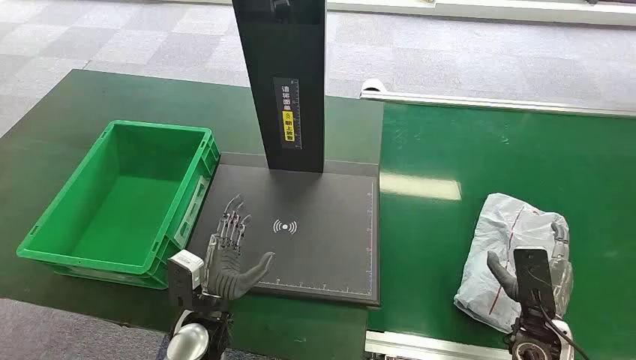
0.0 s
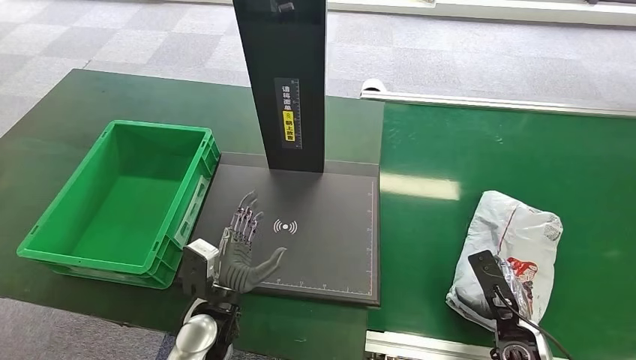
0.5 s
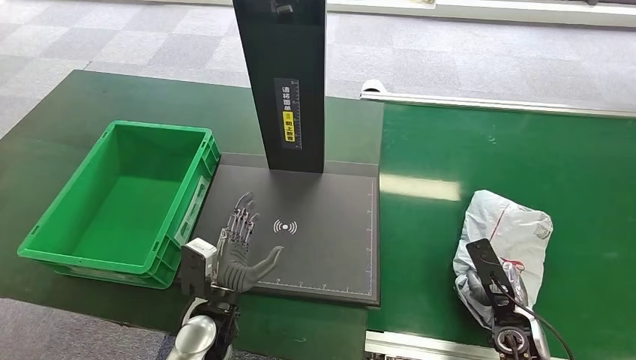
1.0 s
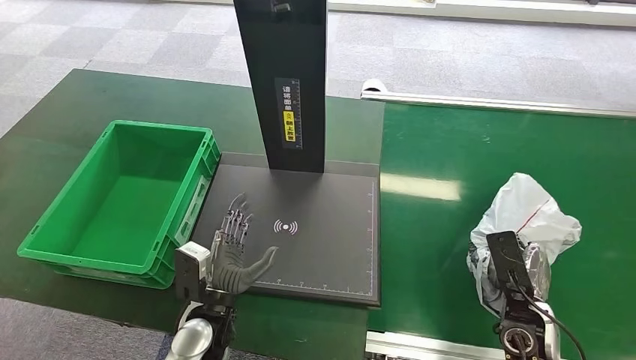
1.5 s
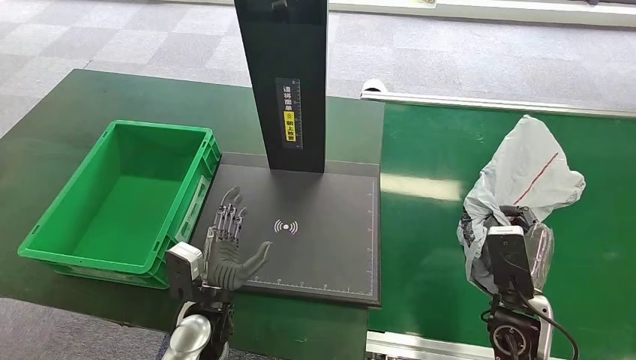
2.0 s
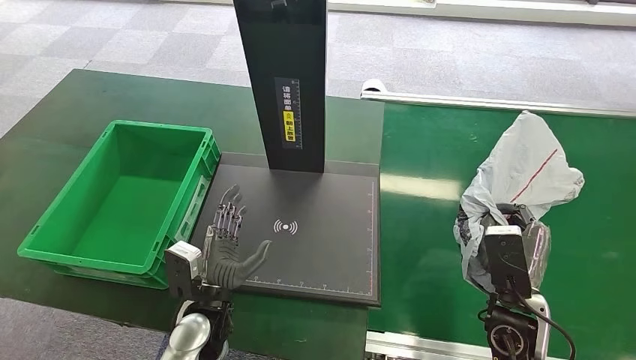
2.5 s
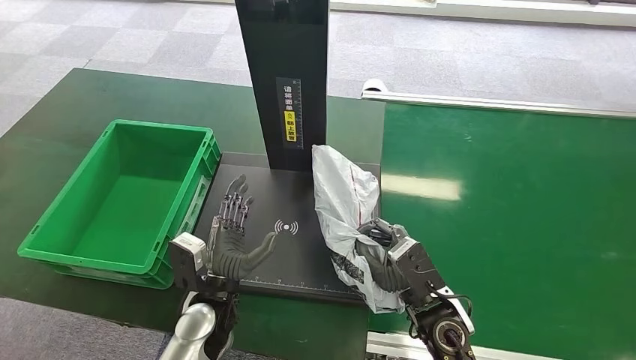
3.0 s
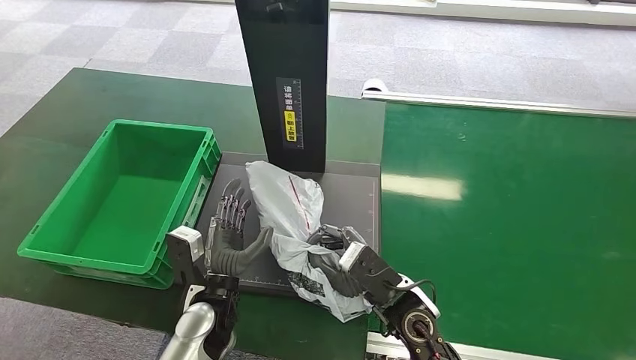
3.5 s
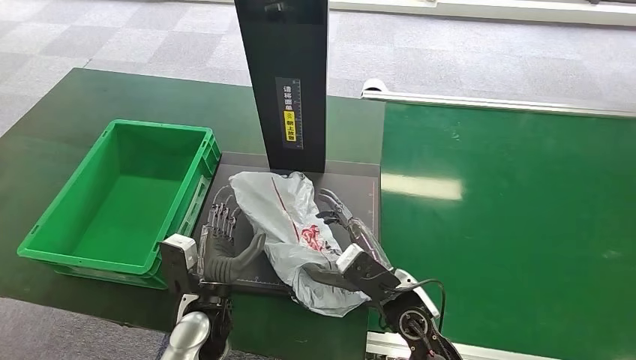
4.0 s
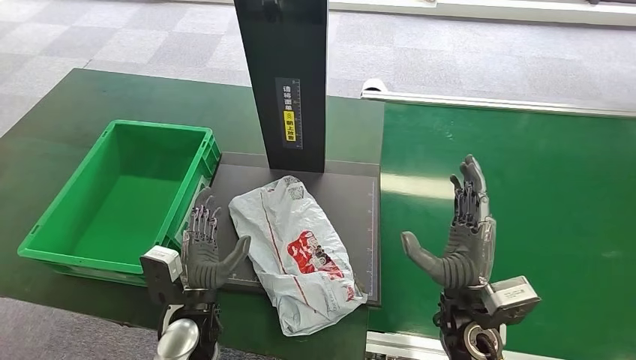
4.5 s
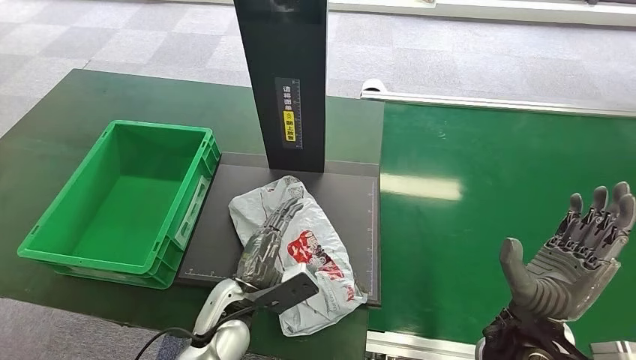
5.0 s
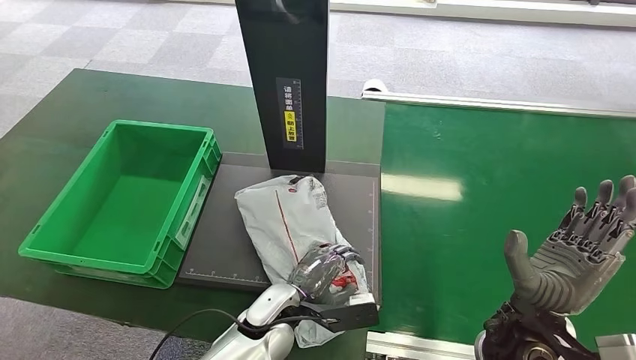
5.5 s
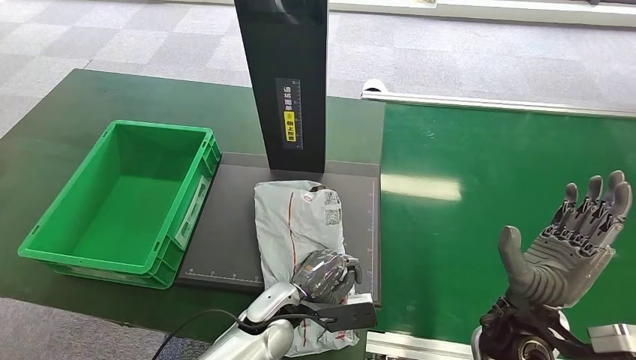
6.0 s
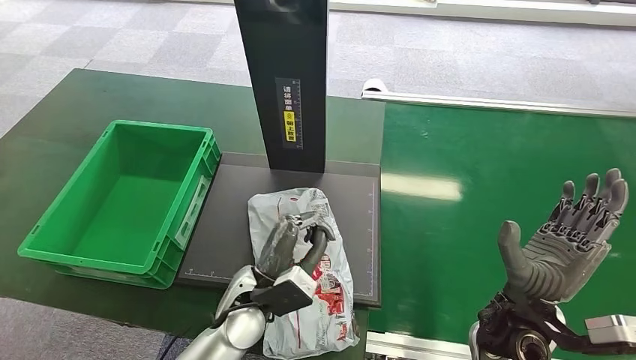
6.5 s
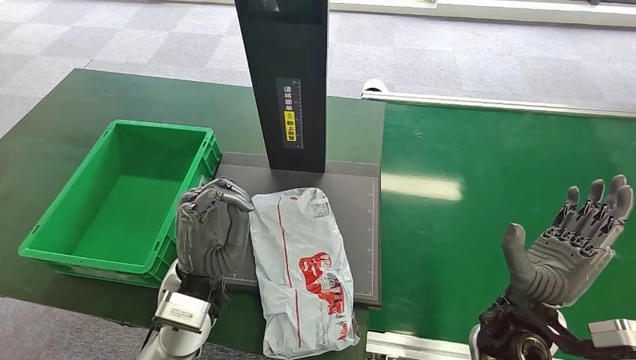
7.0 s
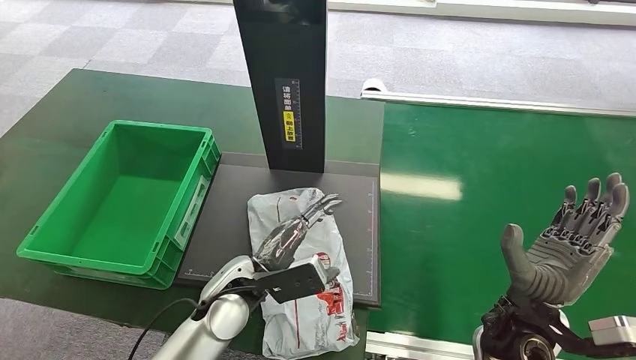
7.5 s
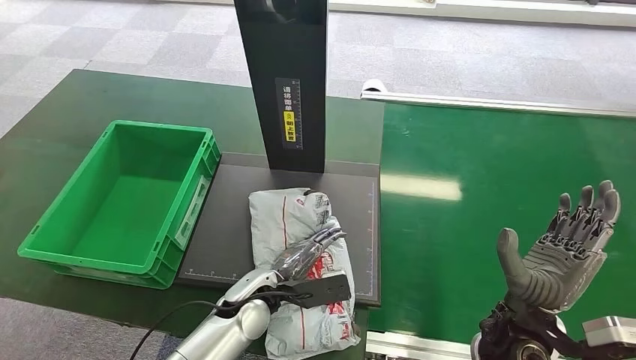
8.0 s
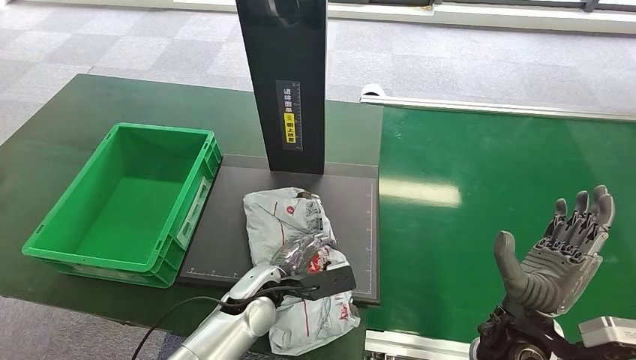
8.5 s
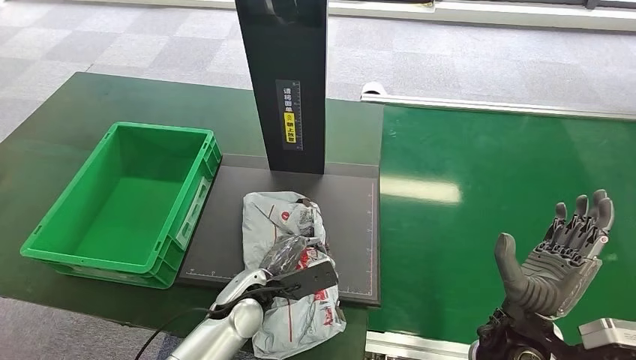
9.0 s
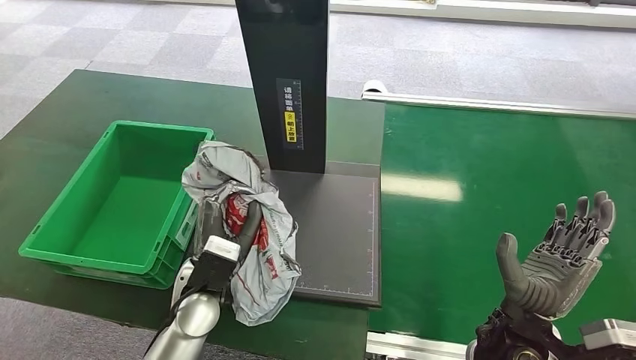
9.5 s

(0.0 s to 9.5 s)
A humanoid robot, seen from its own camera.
Task of the whole recording: Weigh the package on the weighing device and place it in the left basket.
Step, 0.0 s - 1.5 s: Pick up the package from the conveyor belt.
Step, 2.0 s - 5.0 s: Place the package onto the inbound machine.
2.0 s - 4.0 s: The right hand goes some 15 cm to the left.
4.0 s - 5.5 s: The right hand is displaced to the right and upward by some 15 cm; the left hand travels to the right by about 10 cm.
5.5 s - 7.5 s: The left hand goes about 10 cm upward and to the left.

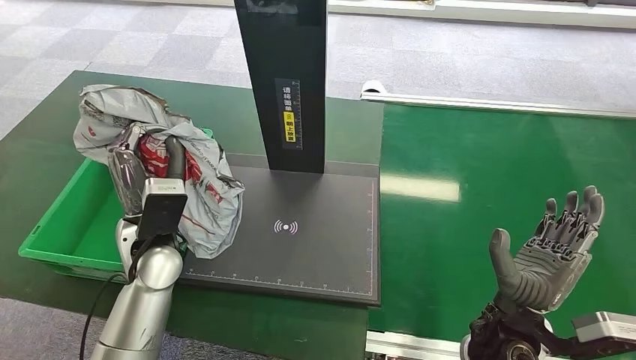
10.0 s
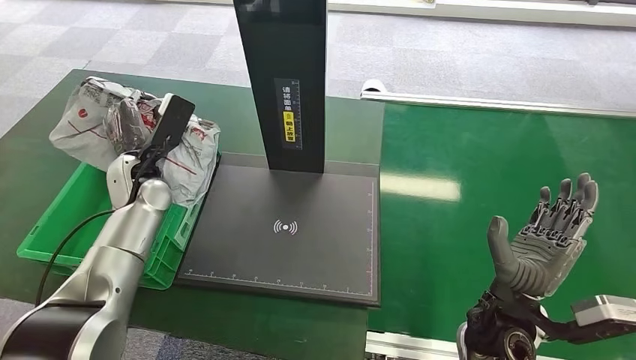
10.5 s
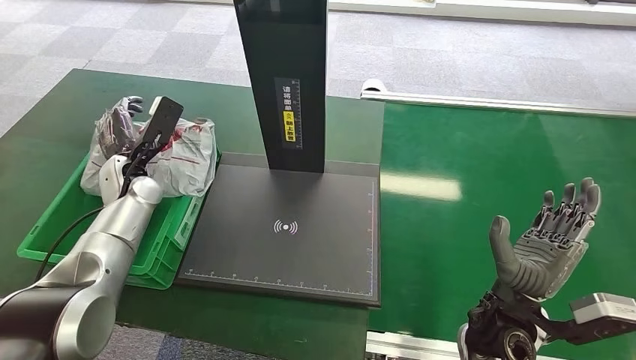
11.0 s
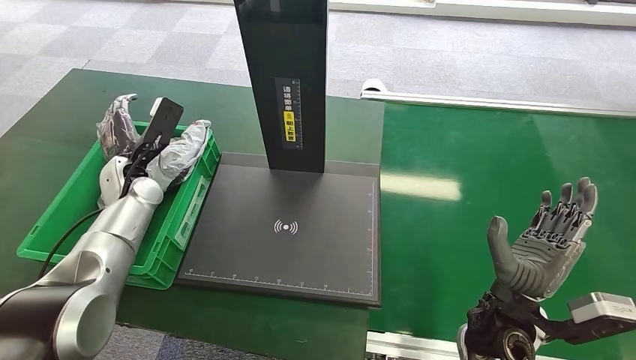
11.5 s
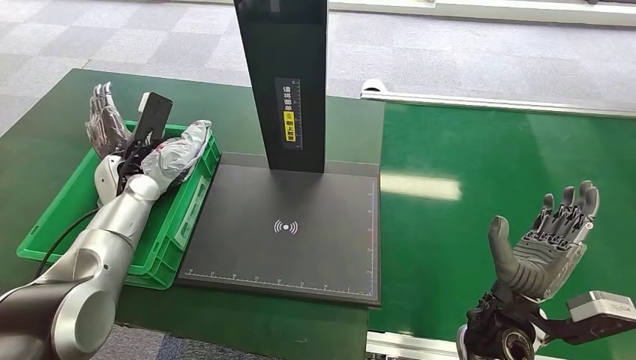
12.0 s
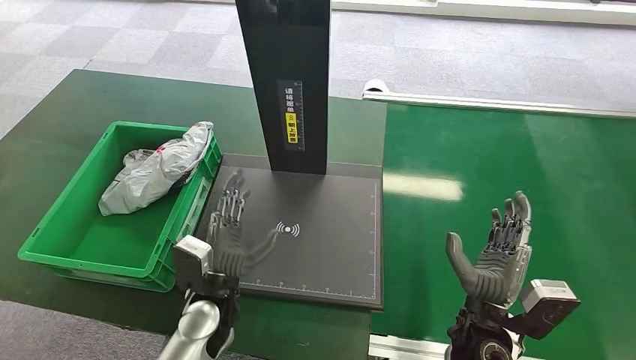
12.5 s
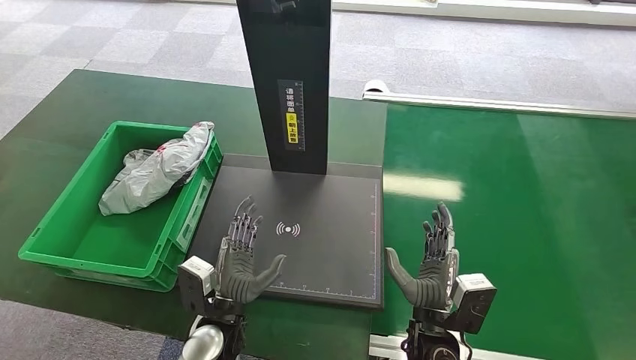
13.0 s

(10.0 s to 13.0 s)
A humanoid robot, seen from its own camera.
Task of the whole recording: Weigh the package on the weighing device and place it in the left basket.
Step, 10.5 s - 13.0 s: Place the package into the parcel locker.

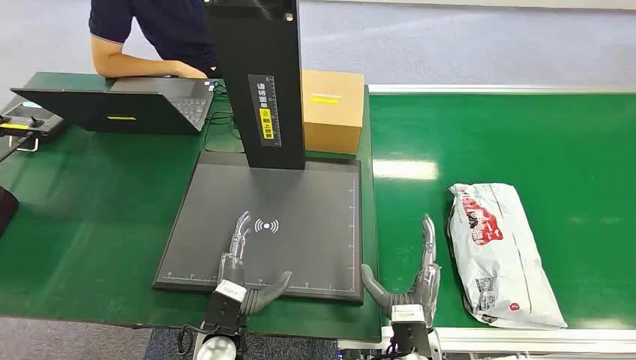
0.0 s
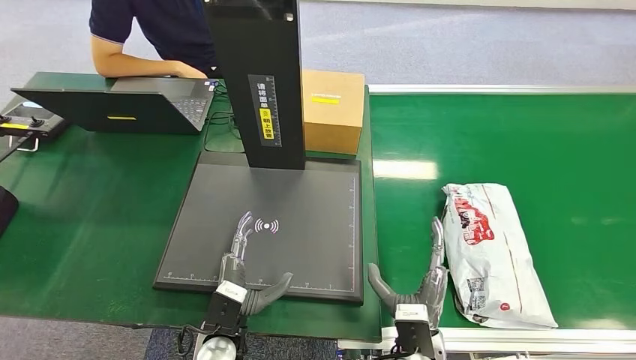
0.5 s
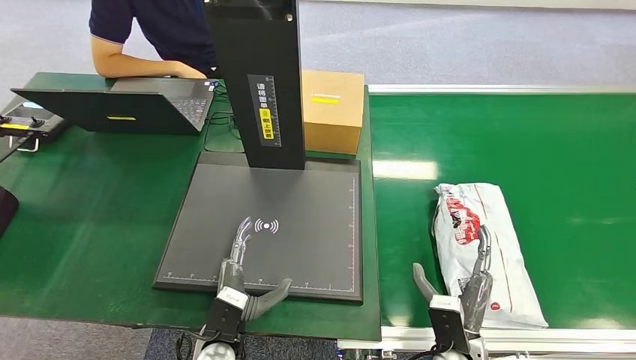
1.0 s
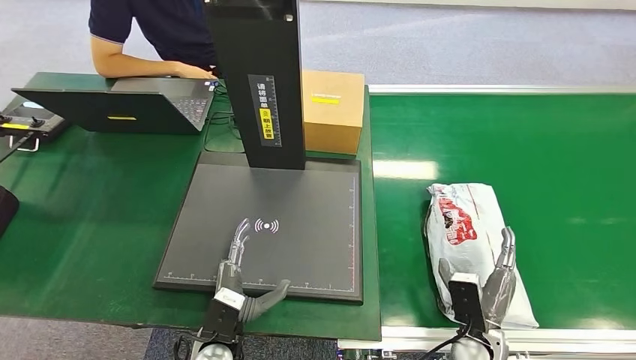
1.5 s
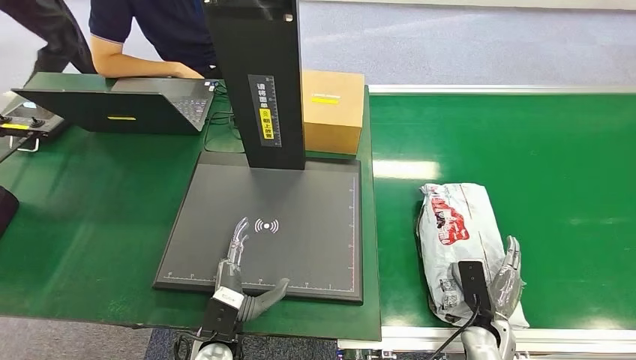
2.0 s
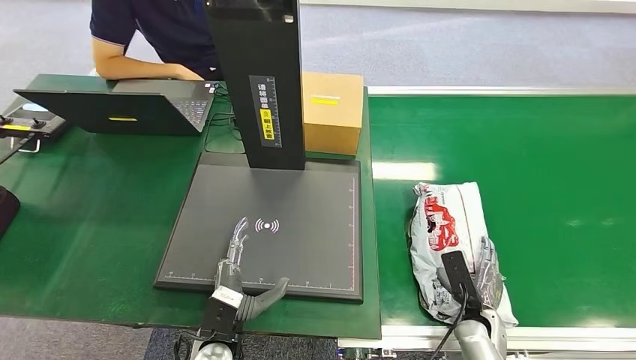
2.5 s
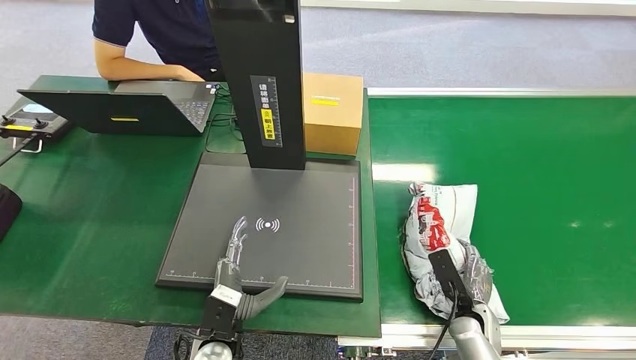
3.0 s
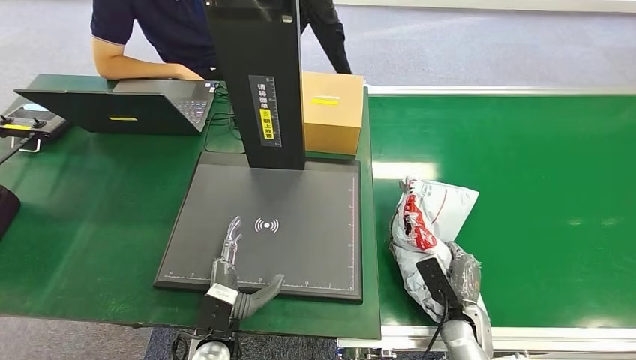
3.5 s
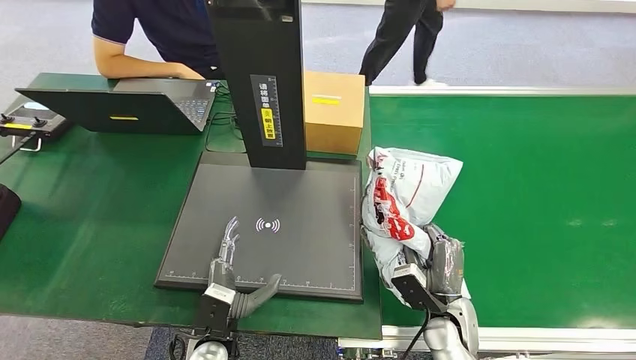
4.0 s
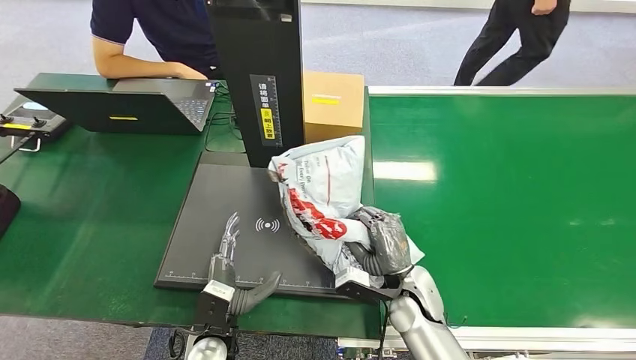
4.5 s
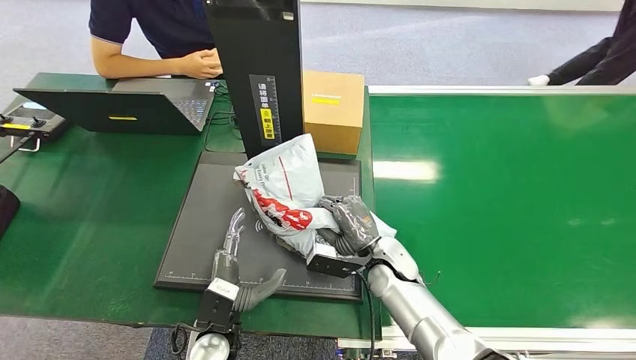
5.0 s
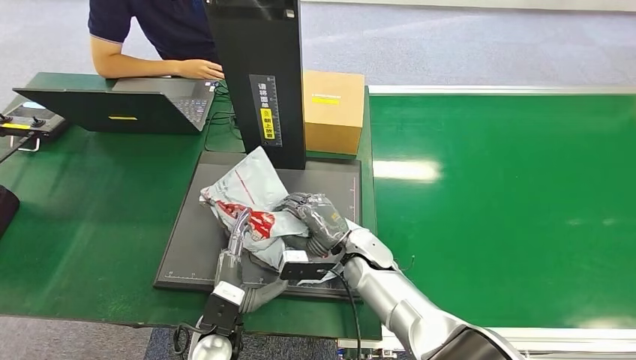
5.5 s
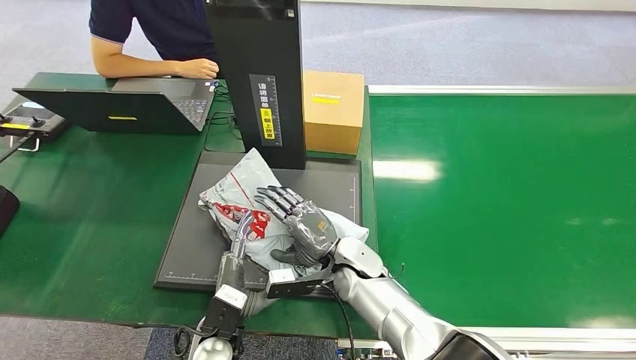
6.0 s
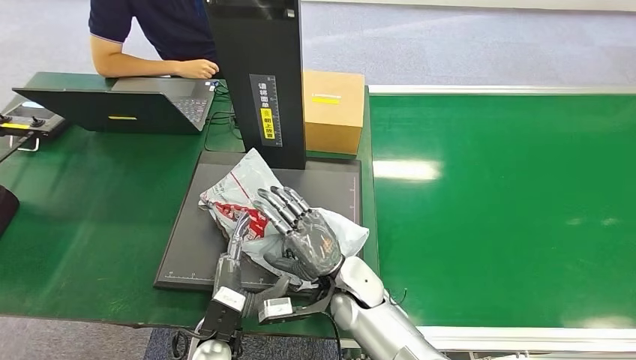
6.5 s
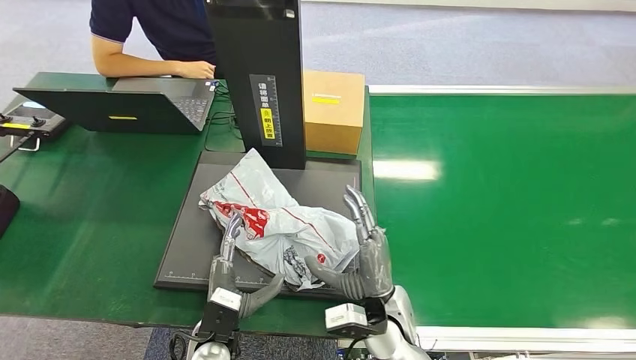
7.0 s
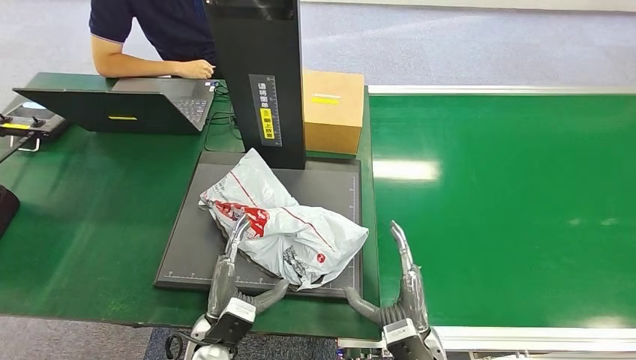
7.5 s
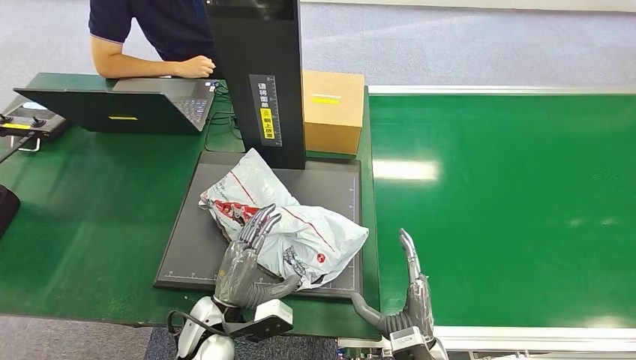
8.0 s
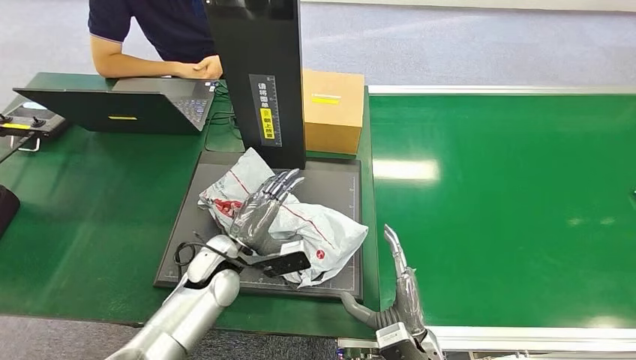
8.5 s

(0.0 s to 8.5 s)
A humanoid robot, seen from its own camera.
Task of the whole recording: Weigh the package on the weighing device and place it in the left basket.
Step, 0.0 s - 3.5 s: Pick up the package from the conveyor belt.
Step, 4.0 s - 6.5 s: Place the package onto the inbound machine.
4.0 s - 6.5 s: The right hand heads to the left and upward, covering approximately 20 cm.
6.5 s - 8.5 s: The left hand shifts about 15 cm forward and upward. The right hand goes about 15 cm to the right, backward and downward.
